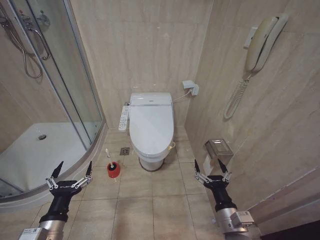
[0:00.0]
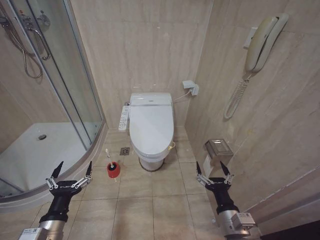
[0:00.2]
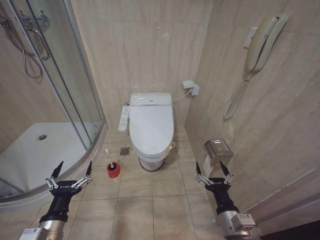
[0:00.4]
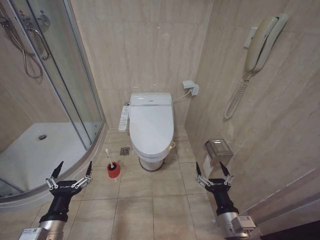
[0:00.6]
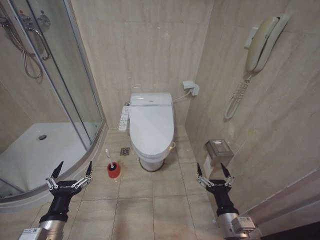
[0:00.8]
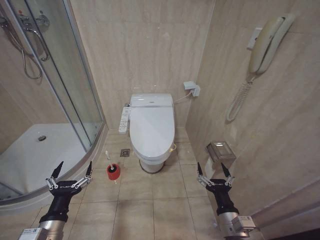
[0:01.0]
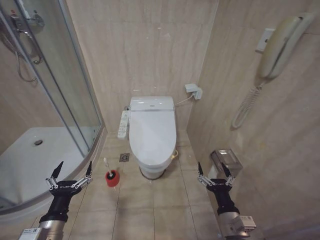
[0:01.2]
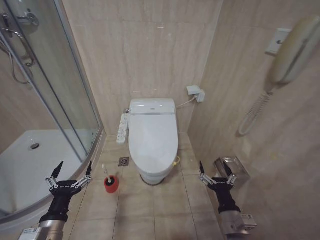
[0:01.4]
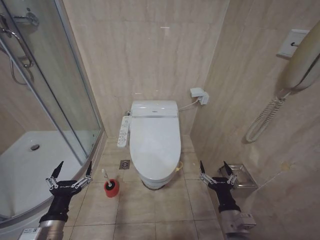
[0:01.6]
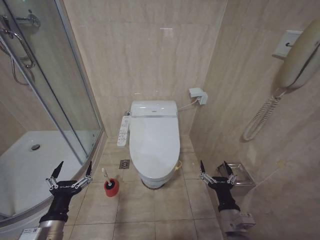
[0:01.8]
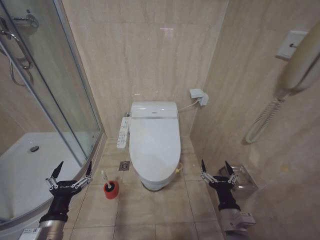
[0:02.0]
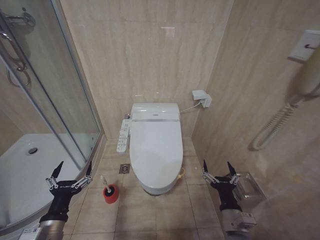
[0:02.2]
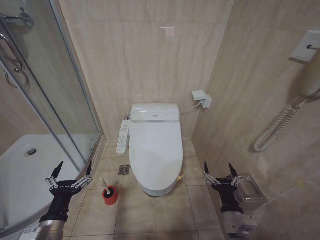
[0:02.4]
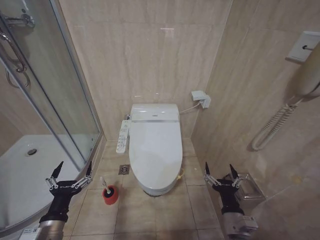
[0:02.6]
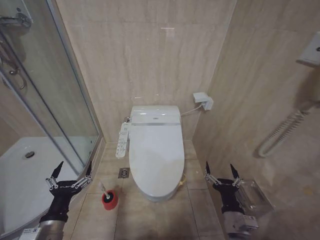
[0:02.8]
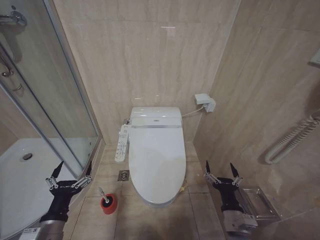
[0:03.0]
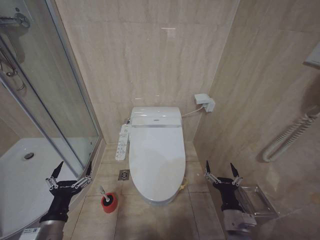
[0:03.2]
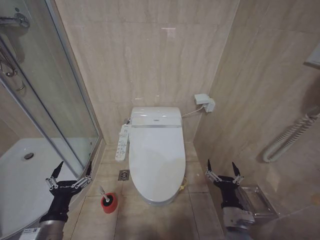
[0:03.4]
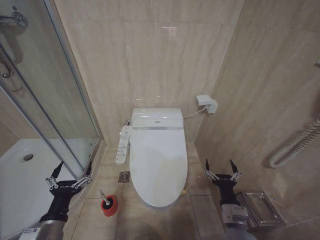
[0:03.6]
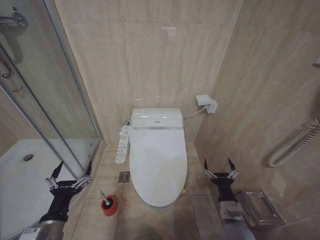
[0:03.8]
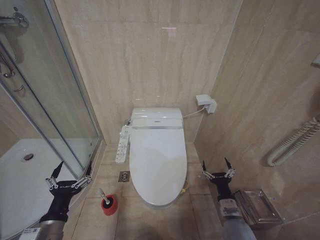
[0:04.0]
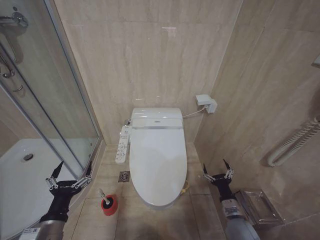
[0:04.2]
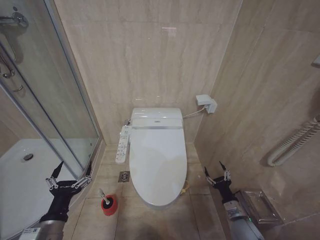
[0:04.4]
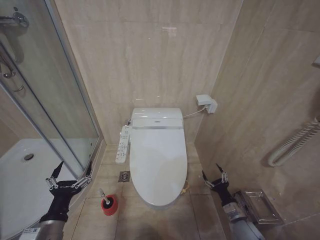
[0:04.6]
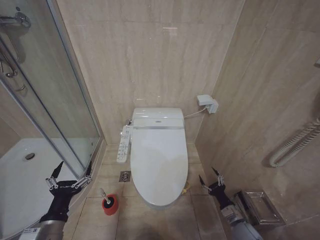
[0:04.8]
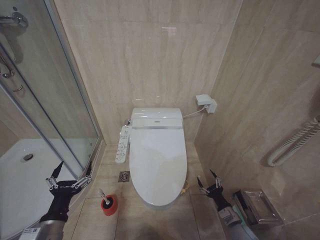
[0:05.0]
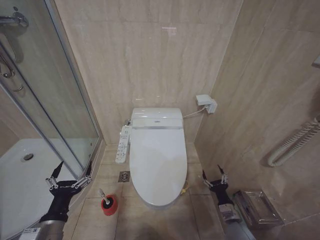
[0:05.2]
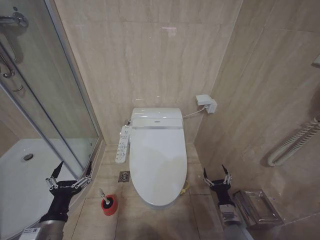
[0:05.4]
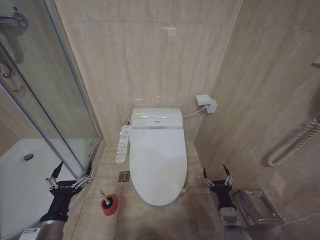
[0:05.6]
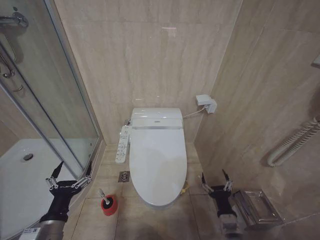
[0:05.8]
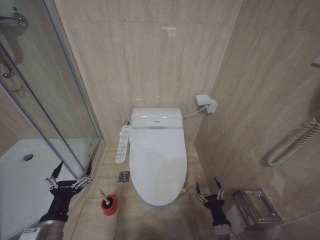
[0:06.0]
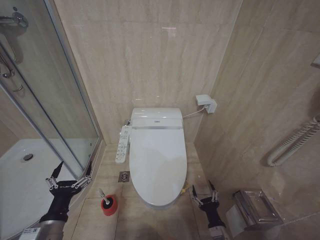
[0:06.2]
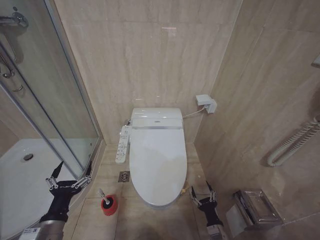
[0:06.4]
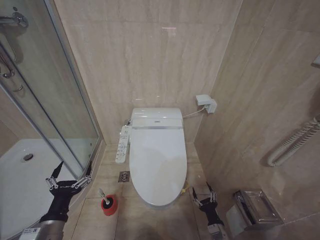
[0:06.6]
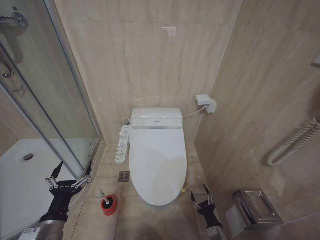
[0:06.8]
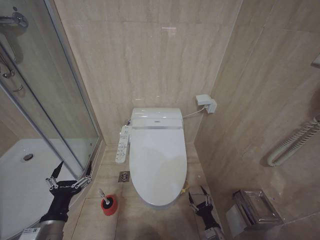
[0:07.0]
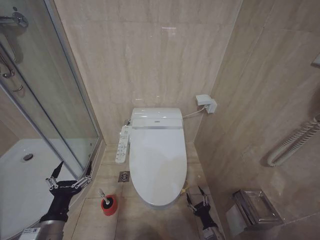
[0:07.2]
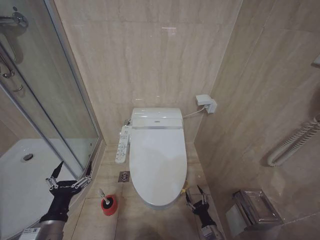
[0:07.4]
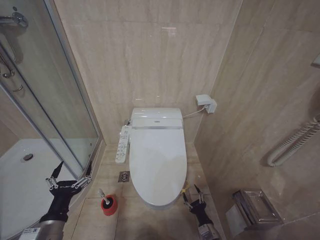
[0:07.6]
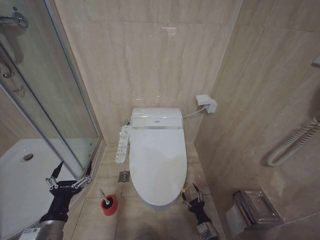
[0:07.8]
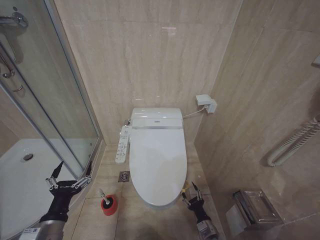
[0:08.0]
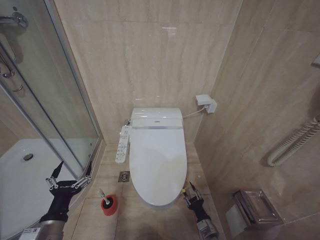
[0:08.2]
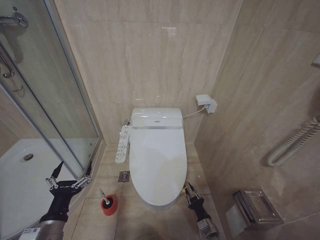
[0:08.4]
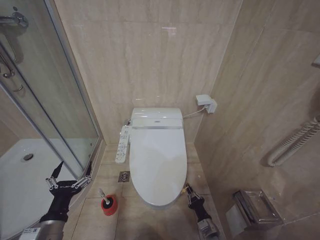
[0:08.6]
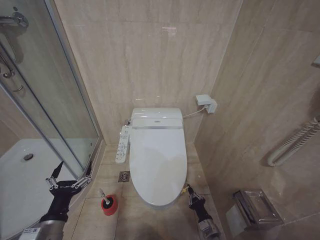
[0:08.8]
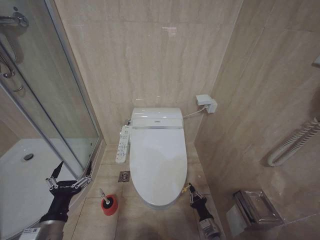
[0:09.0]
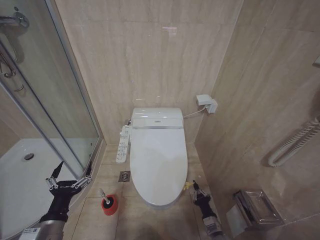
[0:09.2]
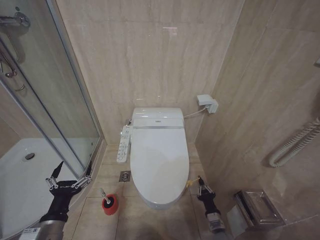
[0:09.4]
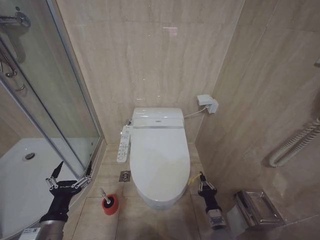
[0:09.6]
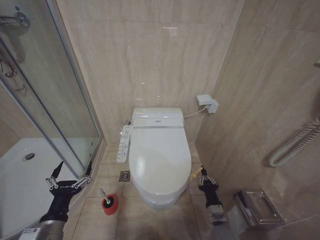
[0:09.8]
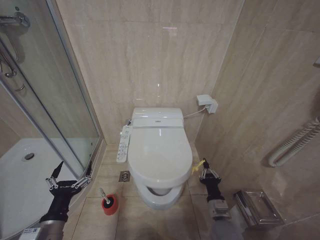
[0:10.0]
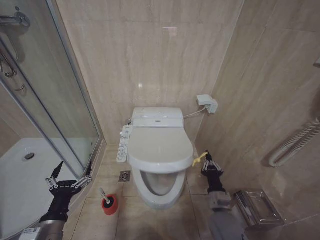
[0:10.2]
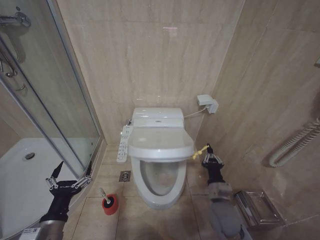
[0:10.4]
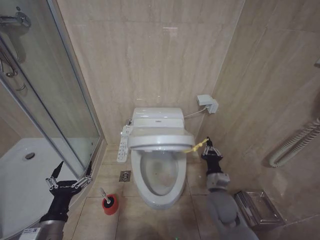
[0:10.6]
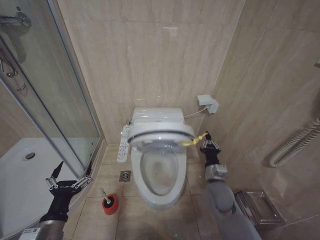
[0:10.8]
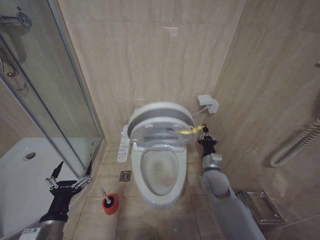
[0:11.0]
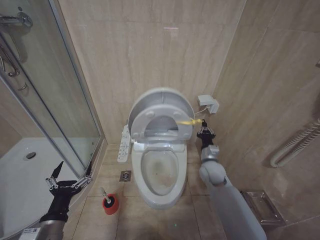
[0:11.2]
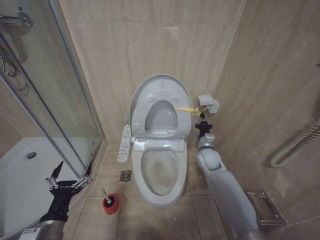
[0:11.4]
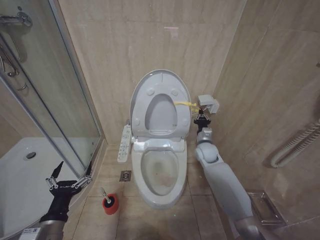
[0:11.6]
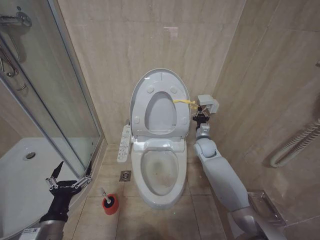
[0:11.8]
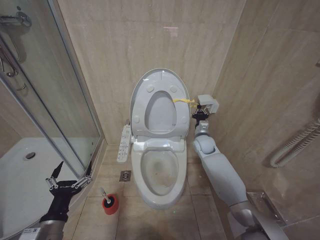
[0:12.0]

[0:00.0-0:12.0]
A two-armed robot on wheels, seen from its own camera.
Task of the whole recording: Open the toilet lid, clean the toilet bowl with a toilet brush, close the toilet lid, and flush.
0:01.6 to 0:03.0: The grippers make only small movements.
0:03.0 to 0:04.4: The right gripper shifts some 15 cm downward, to the right and forward.
0:04.4 to 0:06.0: The right gripper goes approximately 10 cm to the left and backward.
0:06.0 to 0:07.6: The right gripper is displaced downward by some 10 cm.
0:09.0 to 0:10.4: The right gripper is displaced upward by about 20 cm.
0:10.4 to 0:12.0: The right gripper goes about 30 cm forward.

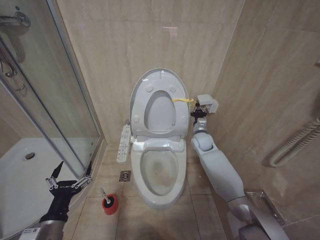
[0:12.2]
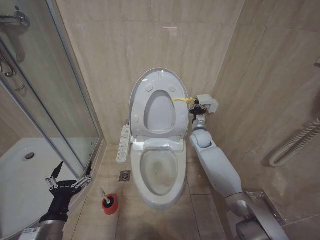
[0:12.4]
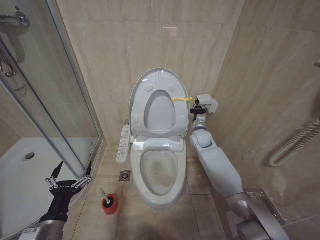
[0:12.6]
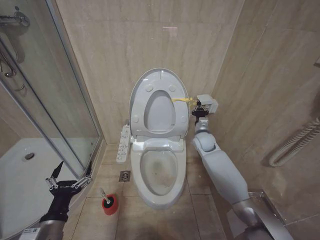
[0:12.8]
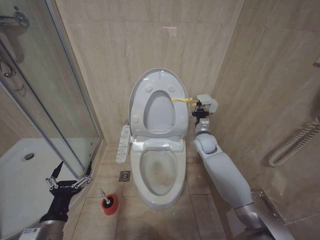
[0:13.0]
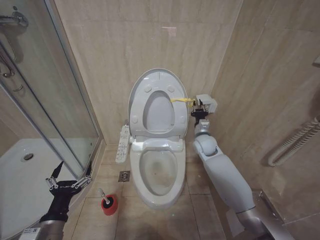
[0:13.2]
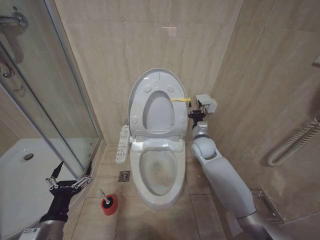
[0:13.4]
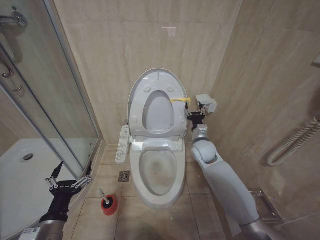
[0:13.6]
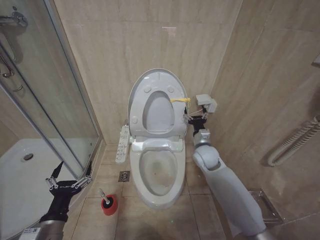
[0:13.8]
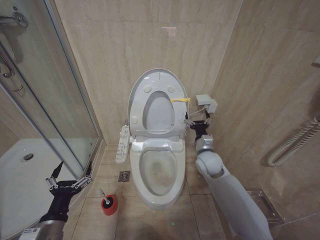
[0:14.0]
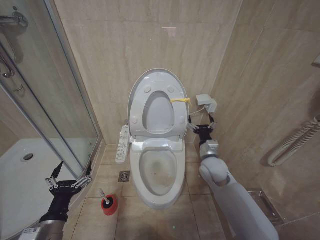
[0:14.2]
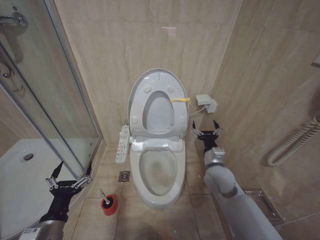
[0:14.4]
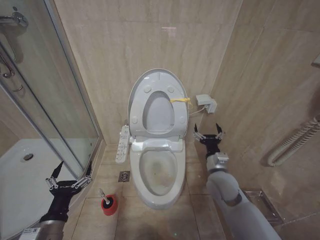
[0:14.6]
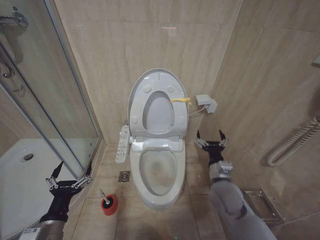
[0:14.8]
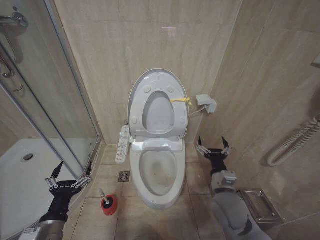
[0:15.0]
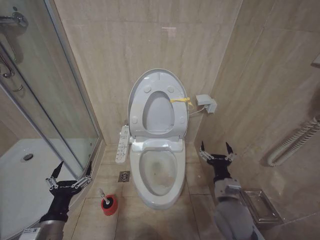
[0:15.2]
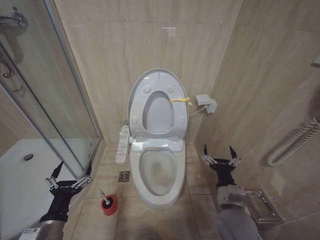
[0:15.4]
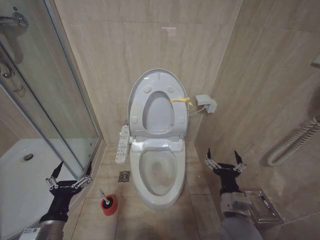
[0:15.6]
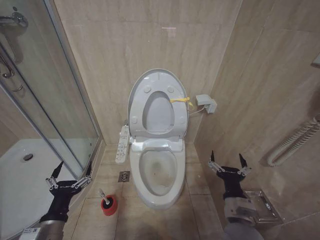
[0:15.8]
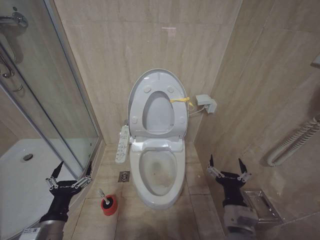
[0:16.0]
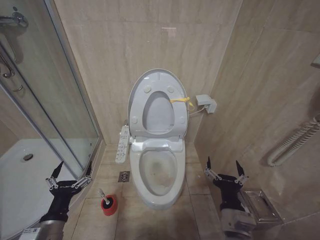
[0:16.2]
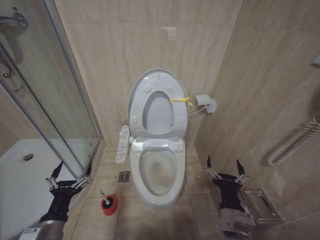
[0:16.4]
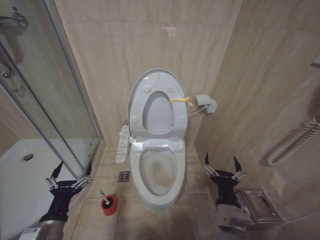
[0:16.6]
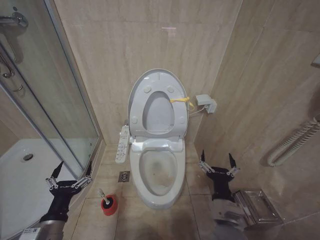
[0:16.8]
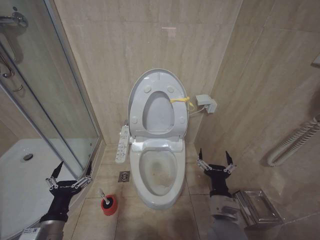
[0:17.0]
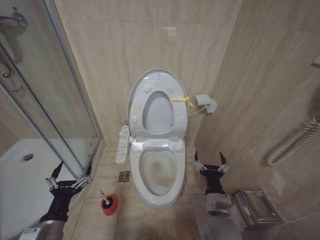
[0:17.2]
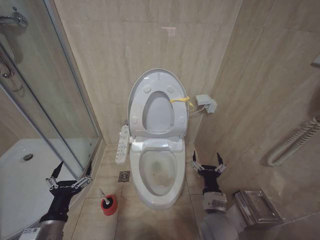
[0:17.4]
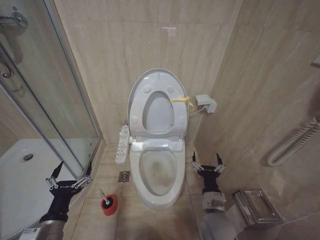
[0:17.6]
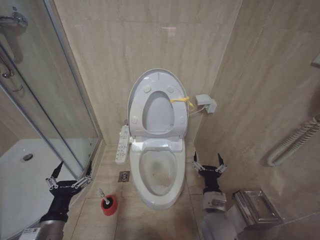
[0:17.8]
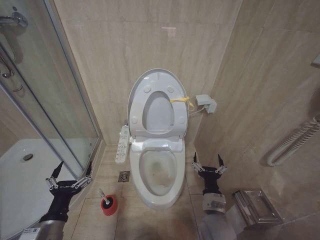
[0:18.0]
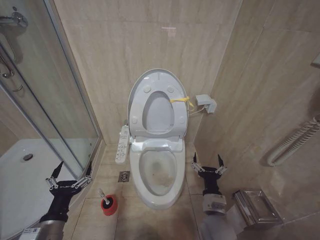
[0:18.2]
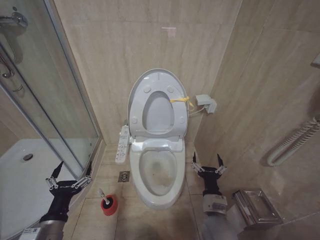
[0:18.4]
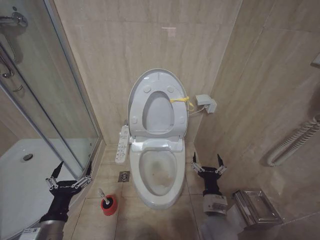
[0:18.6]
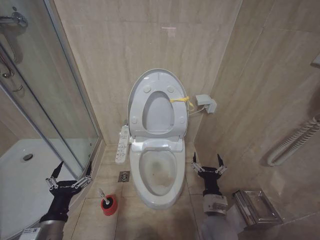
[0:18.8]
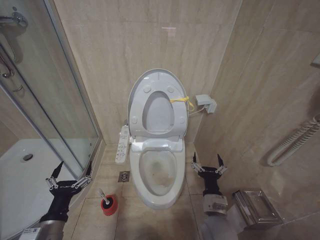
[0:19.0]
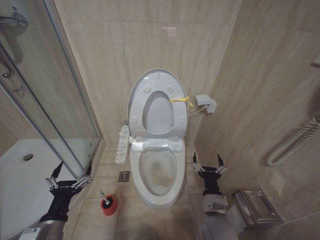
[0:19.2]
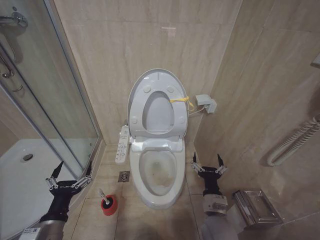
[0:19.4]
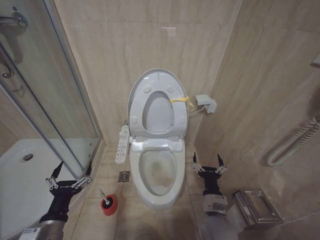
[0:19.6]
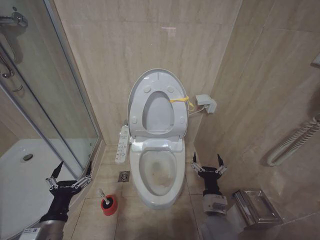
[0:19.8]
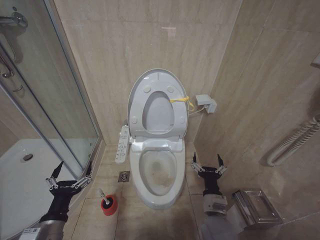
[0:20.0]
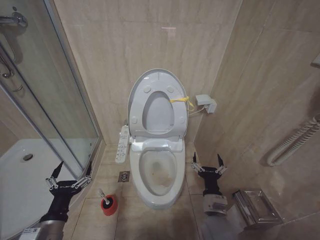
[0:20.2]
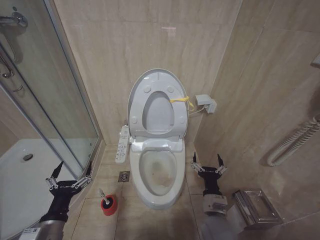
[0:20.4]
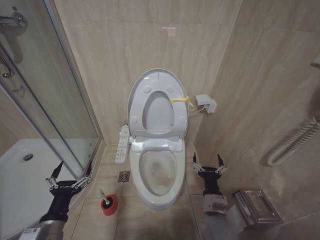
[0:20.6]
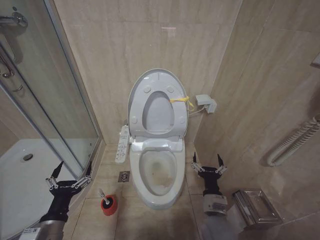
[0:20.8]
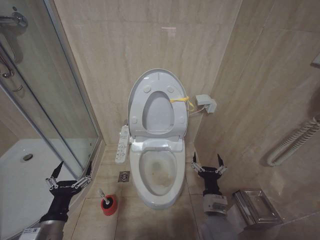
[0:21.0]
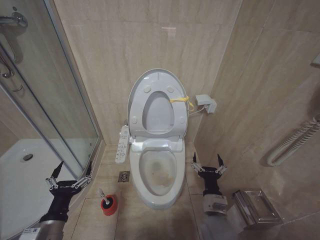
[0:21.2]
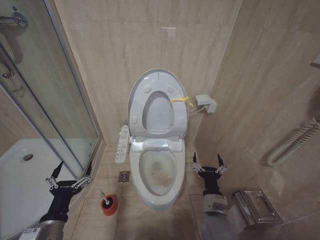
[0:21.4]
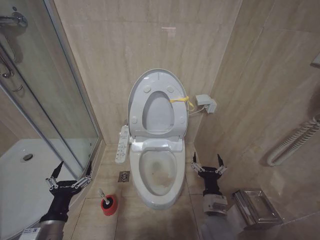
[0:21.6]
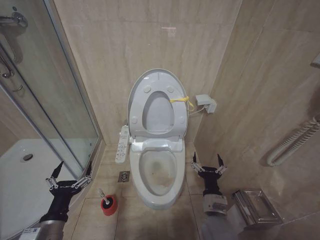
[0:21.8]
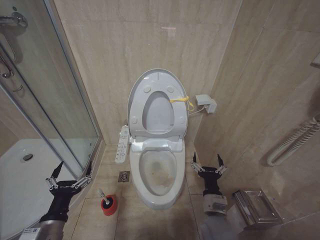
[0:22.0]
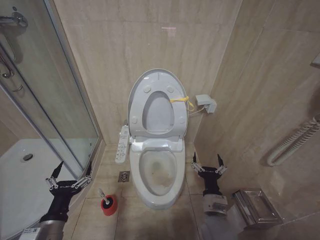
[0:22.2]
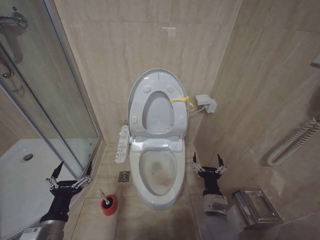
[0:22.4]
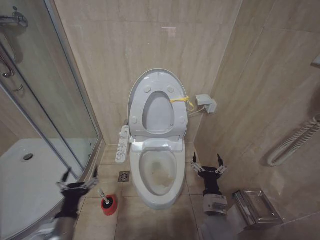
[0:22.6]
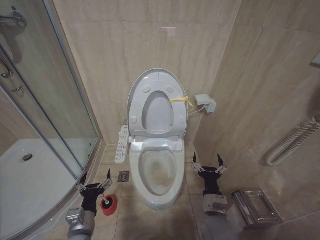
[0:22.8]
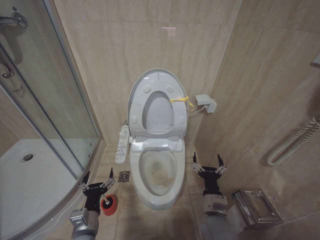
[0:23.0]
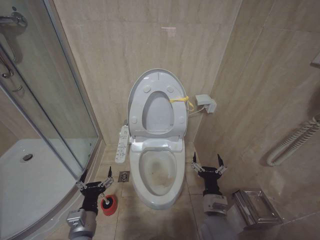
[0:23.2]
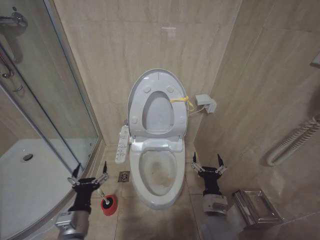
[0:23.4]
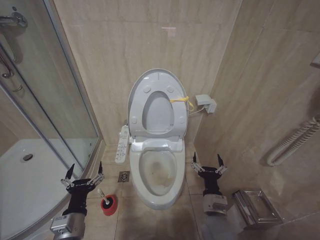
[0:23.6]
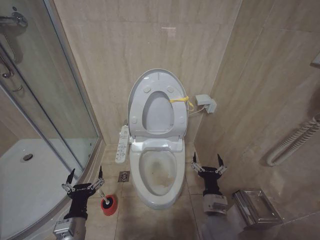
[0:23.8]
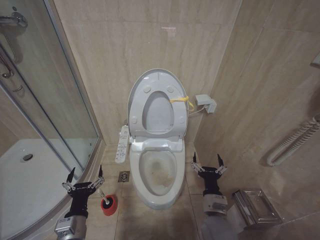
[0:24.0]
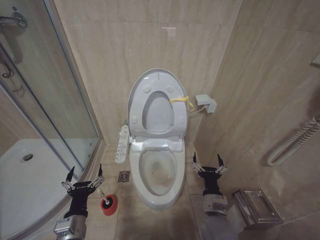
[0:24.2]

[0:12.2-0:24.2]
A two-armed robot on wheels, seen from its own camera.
Task of the whole recording: Open the toilet lid, clean the toilet bowl with a toilet brush, close the toilet lid, and flush.
0:12.2 to 0:13.8: The right gripper goes some 10 cm backward, and opens its fingers.
0:13.8 to 0:15.2: The right gripper heads backward, covering roughly 20 cm.
0:15.2 to 0:16.6: The right gripper is displaced backward by some 10 cm.
0:16.6 to 0:18.2: The right gripper moves forward and downward, roughly 10 cm.
0:18.2 to 0:22.6: Neither gripper changes place.
